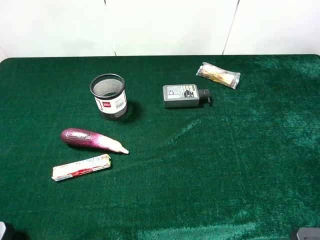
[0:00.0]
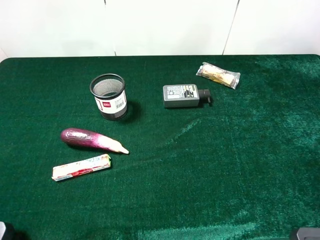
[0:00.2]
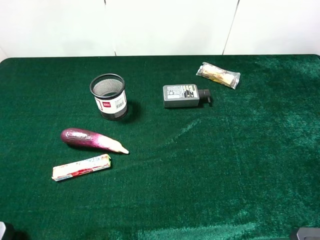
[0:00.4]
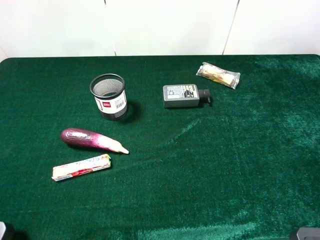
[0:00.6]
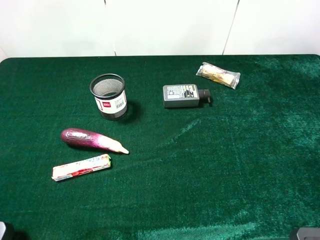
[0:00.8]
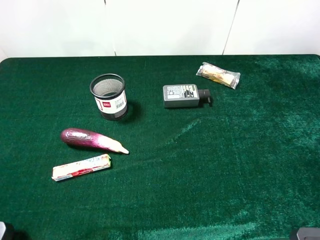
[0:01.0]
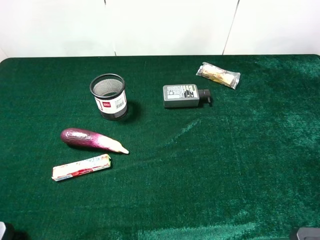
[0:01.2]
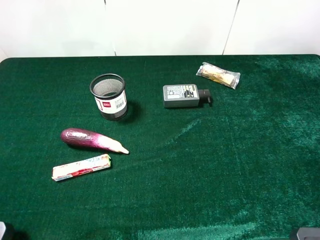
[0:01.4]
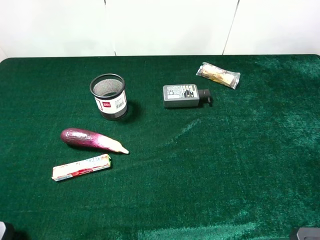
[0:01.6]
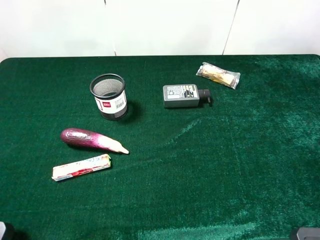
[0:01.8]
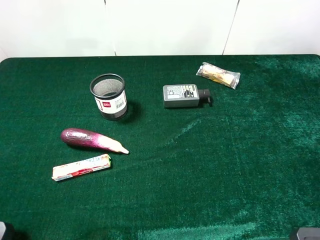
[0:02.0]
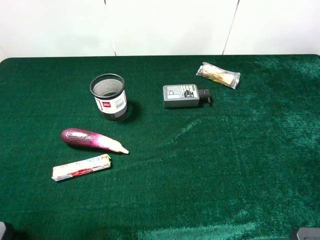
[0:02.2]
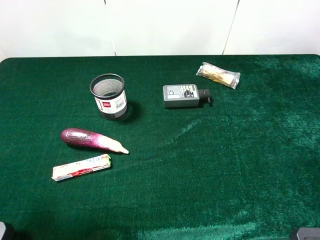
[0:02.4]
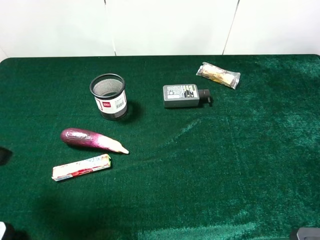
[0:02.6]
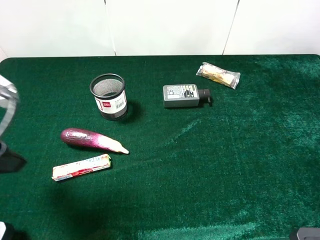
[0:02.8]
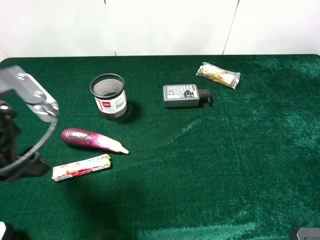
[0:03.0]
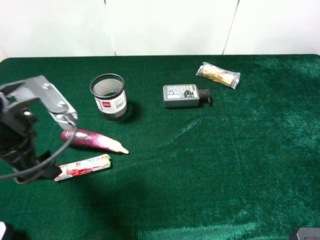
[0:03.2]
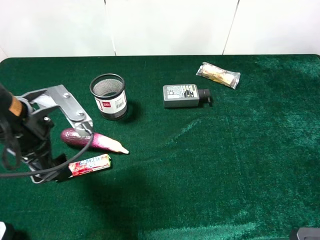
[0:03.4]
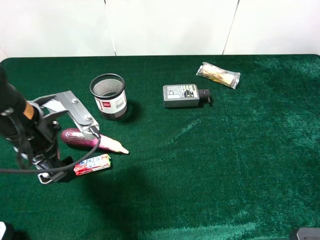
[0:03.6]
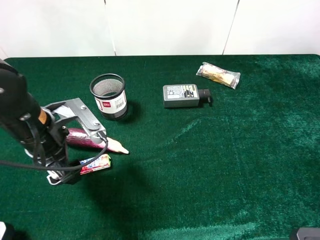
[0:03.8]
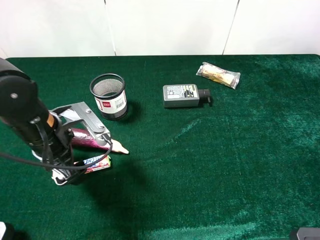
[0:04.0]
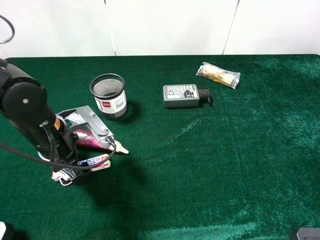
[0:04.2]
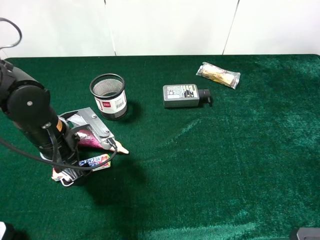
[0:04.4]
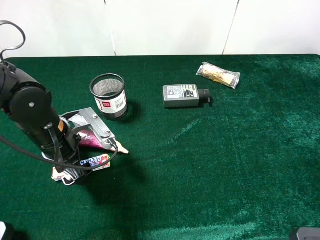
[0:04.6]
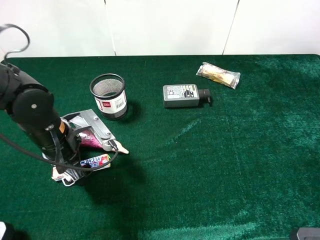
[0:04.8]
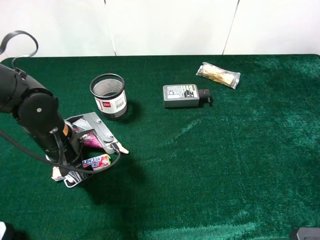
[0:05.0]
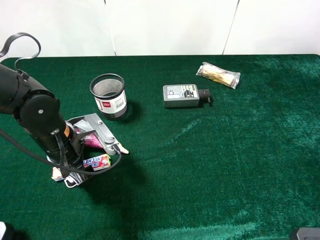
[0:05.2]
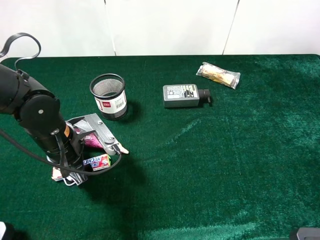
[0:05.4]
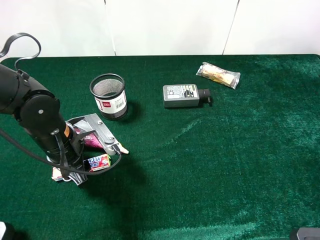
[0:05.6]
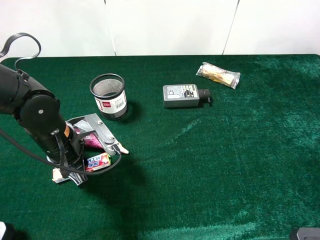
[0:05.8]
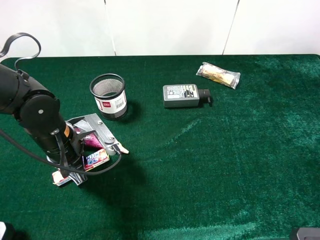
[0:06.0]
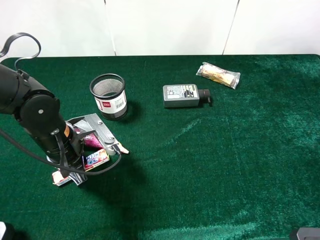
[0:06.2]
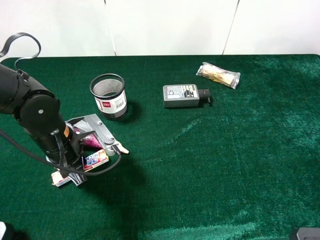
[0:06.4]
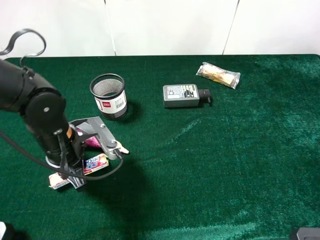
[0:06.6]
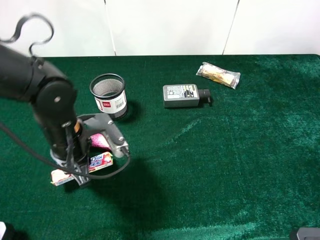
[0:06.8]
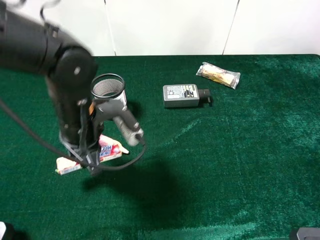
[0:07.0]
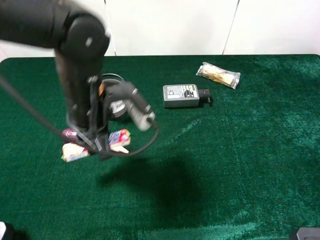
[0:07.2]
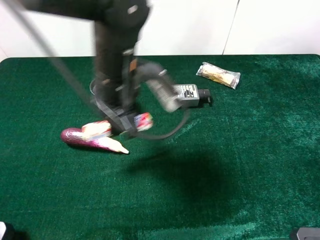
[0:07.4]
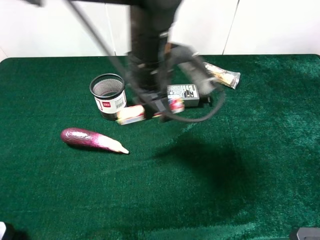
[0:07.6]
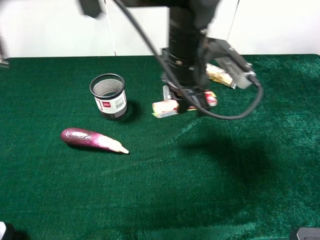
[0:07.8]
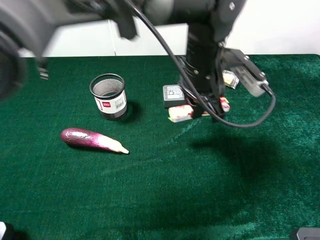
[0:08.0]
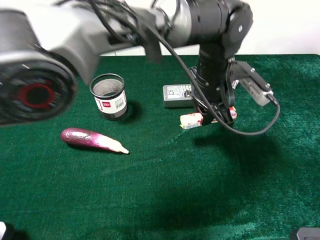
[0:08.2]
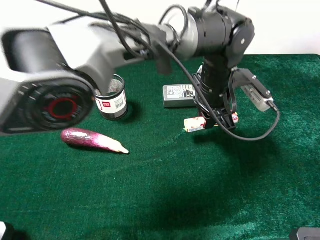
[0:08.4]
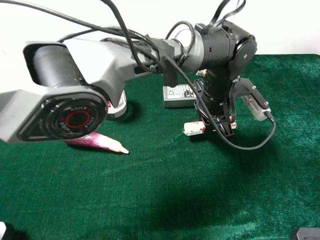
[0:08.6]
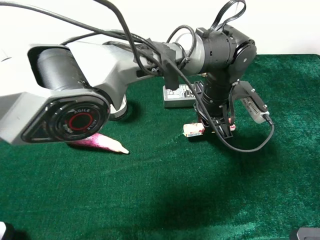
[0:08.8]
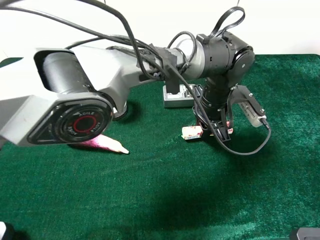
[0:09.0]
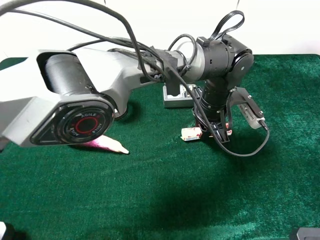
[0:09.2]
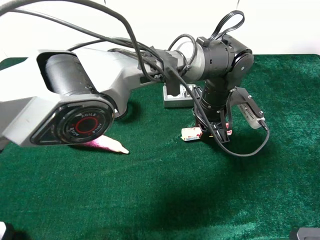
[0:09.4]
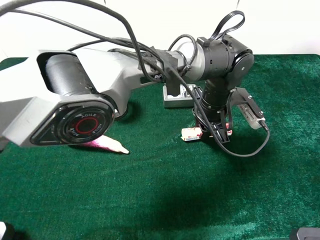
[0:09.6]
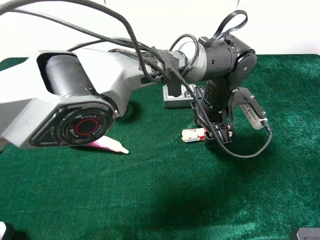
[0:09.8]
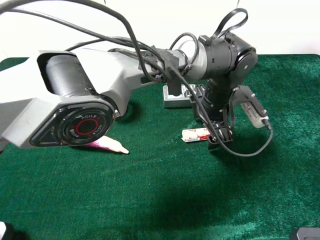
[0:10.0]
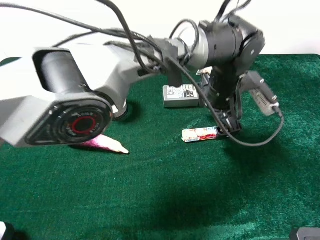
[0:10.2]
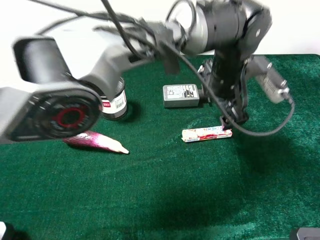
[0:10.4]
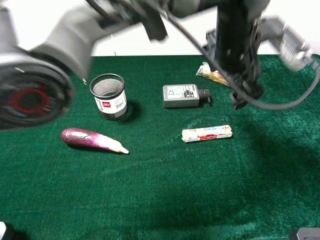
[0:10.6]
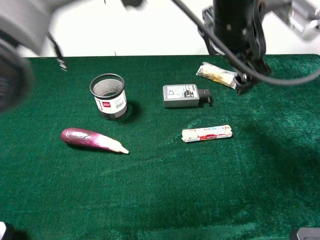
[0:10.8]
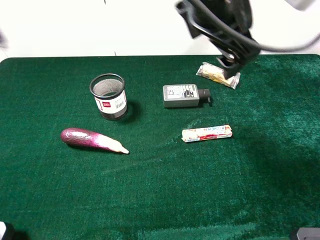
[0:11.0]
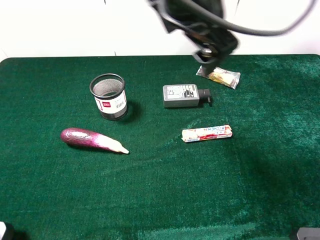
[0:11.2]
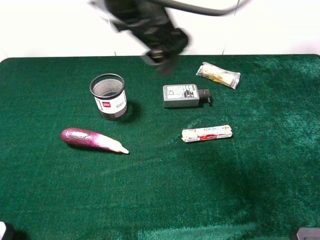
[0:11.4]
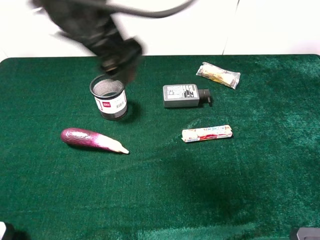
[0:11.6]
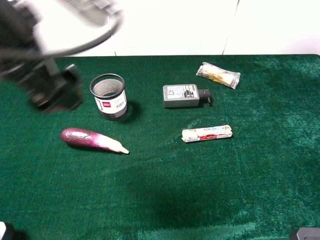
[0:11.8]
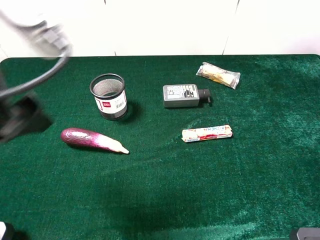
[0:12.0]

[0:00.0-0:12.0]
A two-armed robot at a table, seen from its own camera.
Task of the whole recording: the gripper move the object.
Step, 0:00.0 to 0:05.8: Grasp the fruit candy with the left gripper.
Step, 0:06.0 to 0:09.8: Place the fruit candy on the table with the left gripper.
0:00.0 to 0:01.6: The two grippers keep their place.
0:01.6 to 0:03.0: The left gripper is displaced forward, to the right and downward by some 20 cm.
0:03.0 to 0:04.4: The left gripper moves downward, about 10 cm.
0:04.4 to 0:06.0: The left gripper closes its fingers.
0:06.0 to 0:07.6: The left gripper shifts roughly 25 cm to the right, upward and forward.
0:07.6 to 0:09.0: The left gripper moves to the right and downward, some 15 cm.
0:09.0 to 0:10.4: The left gripper shifts approximately 5 cm upward, and opens.
0:10.4 to 0:12.0: The left gripper heads to the left, backward and upward, covering some 40 cm.

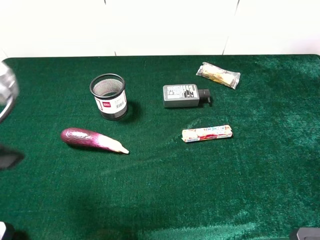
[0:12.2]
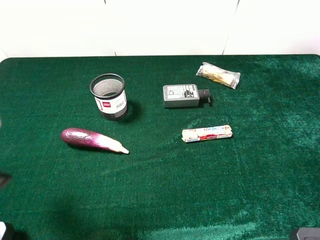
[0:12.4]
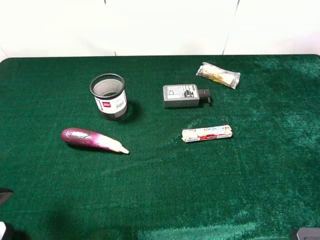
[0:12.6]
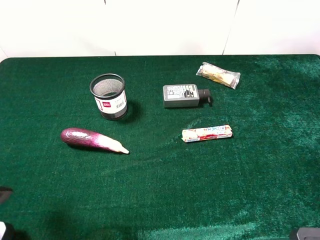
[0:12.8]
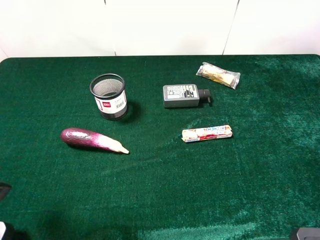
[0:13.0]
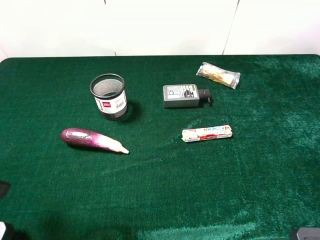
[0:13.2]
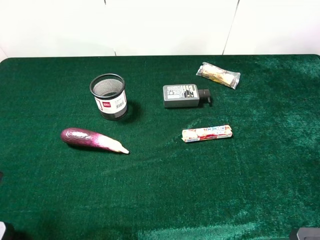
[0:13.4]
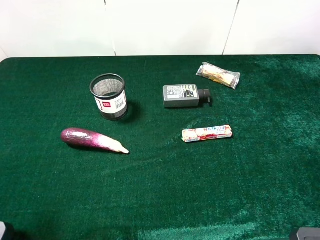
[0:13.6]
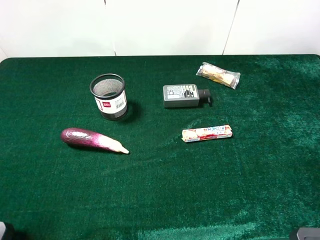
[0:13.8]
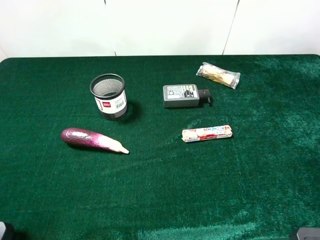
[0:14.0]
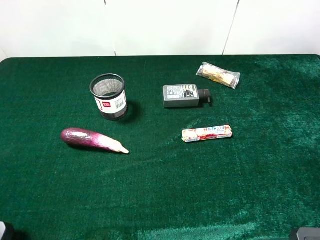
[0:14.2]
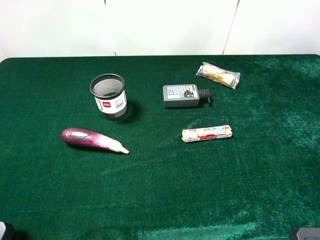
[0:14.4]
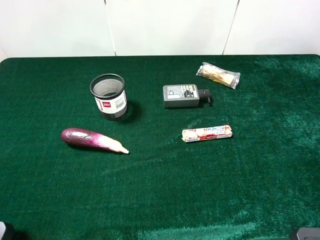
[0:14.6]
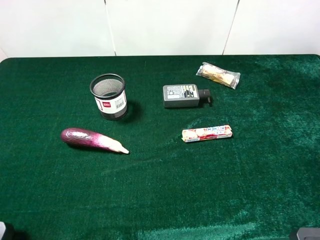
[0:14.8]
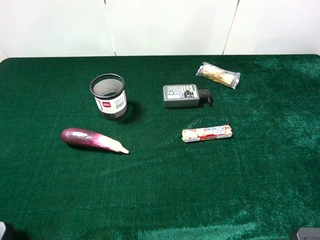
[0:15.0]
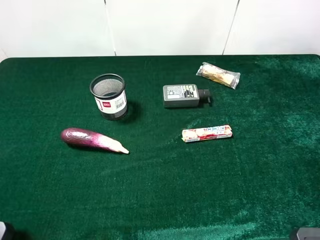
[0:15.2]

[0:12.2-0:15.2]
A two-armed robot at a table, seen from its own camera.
Task of the whole recording: the gripper move the object.
0:12.2 to 0:13.8: The left gripper moves to the left and backward, about 10 cm.

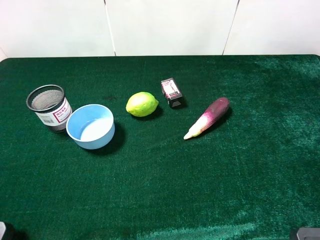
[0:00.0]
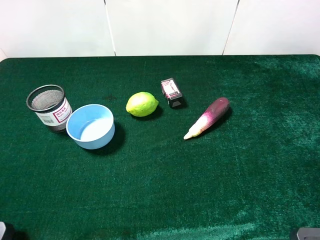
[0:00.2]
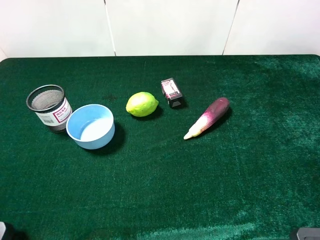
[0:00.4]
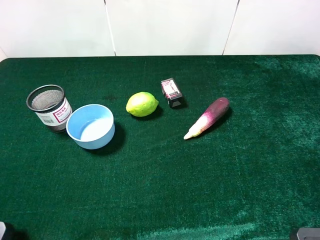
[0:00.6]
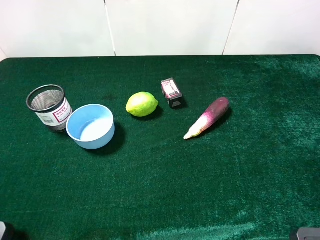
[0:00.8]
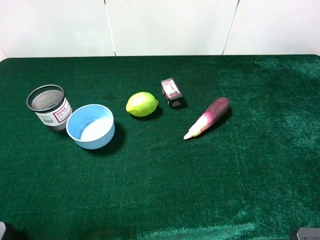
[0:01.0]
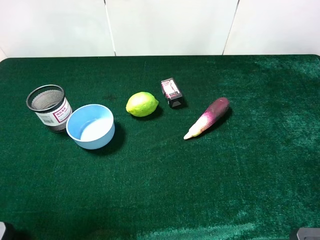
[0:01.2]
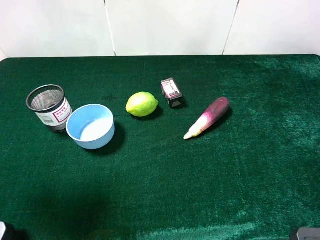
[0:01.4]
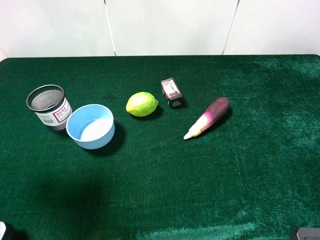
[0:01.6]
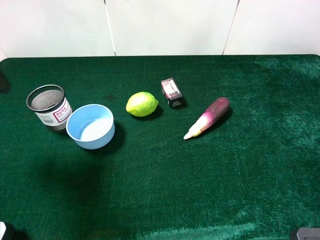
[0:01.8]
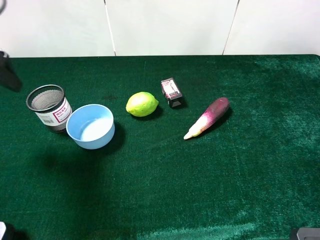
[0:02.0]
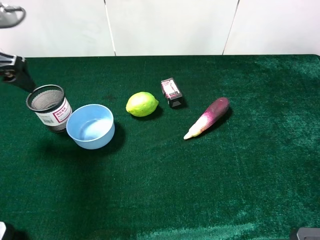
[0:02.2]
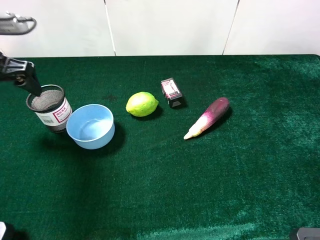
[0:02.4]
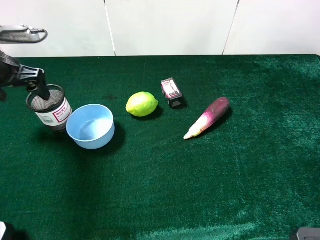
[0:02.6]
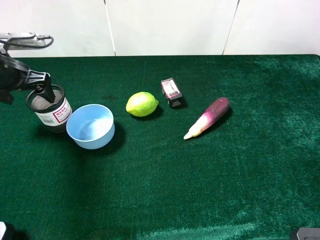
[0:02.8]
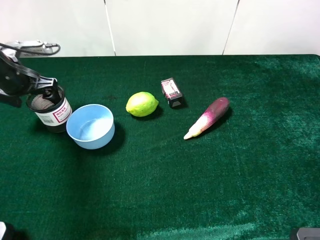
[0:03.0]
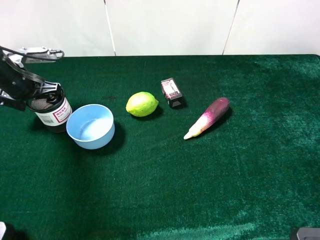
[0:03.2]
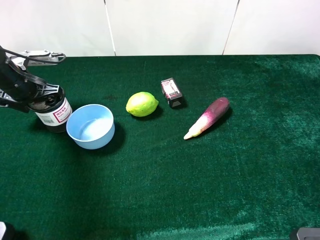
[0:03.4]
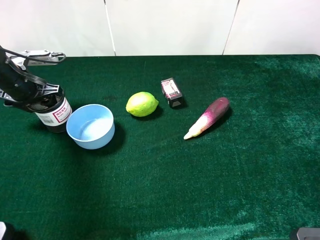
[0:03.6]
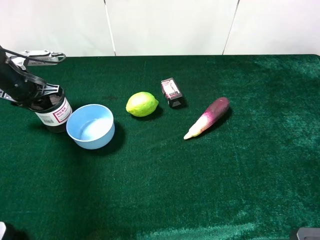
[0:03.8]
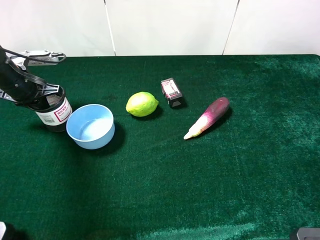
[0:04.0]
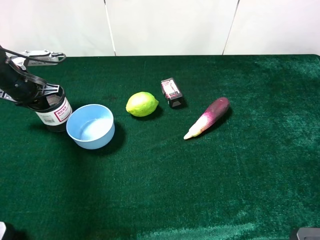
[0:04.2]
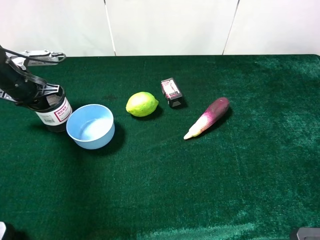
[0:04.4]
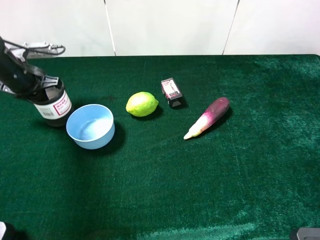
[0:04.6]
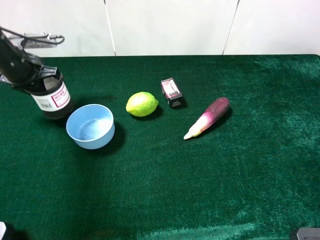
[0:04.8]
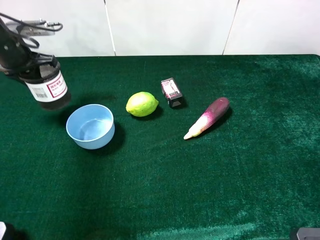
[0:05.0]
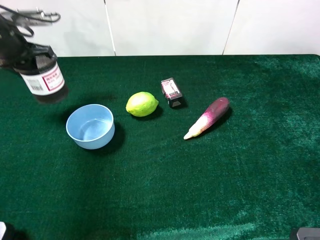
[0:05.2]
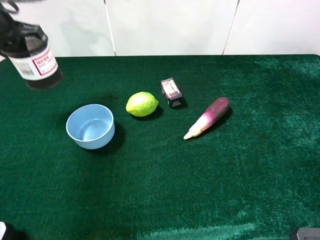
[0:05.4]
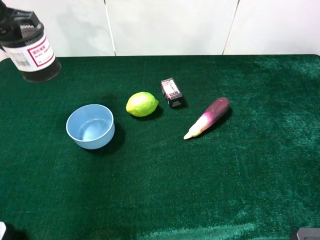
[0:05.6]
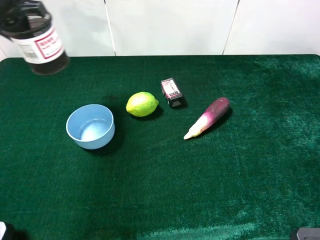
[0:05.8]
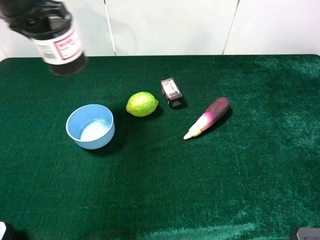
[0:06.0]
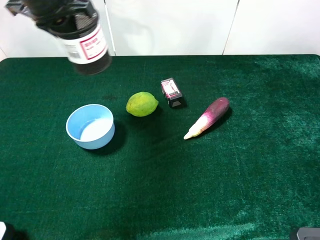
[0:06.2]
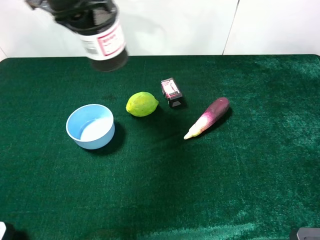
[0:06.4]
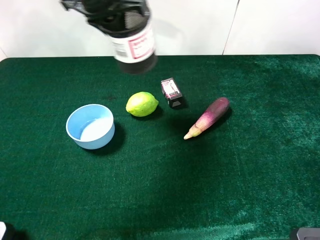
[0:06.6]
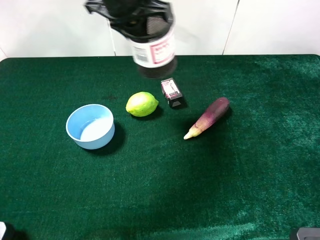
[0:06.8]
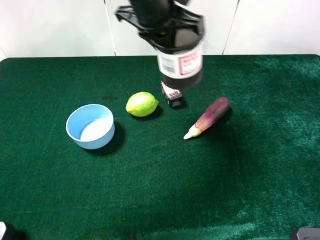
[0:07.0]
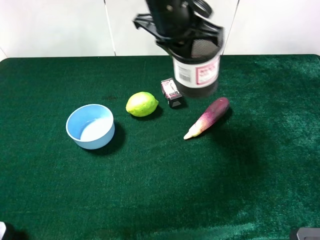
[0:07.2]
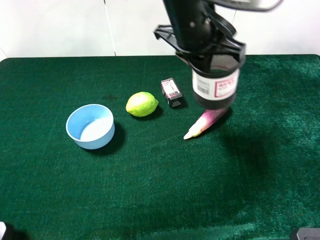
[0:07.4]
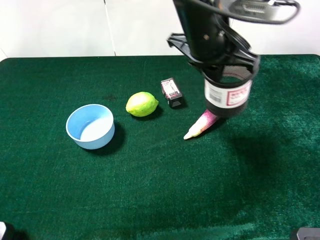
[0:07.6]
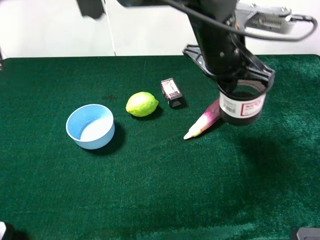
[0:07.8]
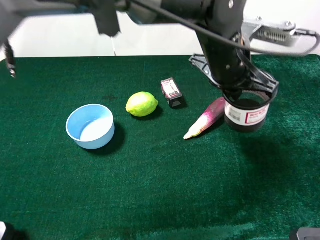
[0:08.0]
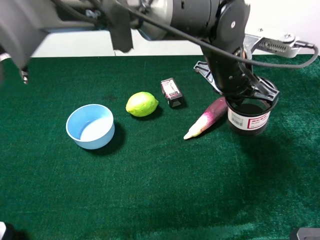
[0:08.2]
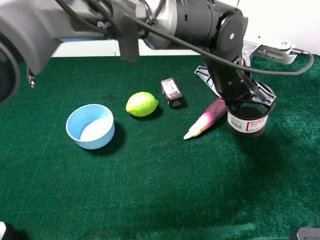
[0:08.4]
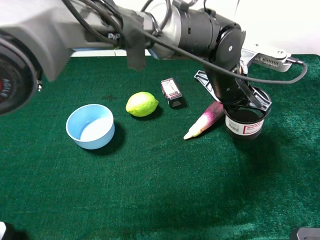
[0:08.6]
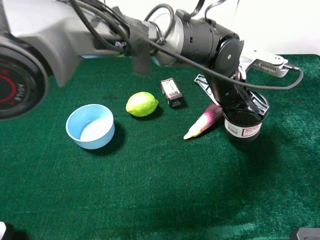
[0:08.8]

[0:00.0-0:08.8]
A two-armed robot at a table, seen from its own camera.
Task of the whole recording: the gripper move the object.
Step, 0:00.0 to 0:04.4: Grasp the pen container with the left gripper.
0:00.0 to 0:01.4: The left gripper shifts some 15 cm forward.
0:01.4 to 0:03.0: The left gripper travels downward and forward by roughly 25 cm.
0:03.0 to 0:04.4: The left gripper closes up.
0:04.4 to 0:05.8: The left gripper goes roughly 15 cm upward.
0:05.8 to 0:07.4: The left gripper shifts roughly 35 cm to the right.
0:07.4 to 0:08.8: The left gripper moves downward and to the right, approximately 15 cm.
